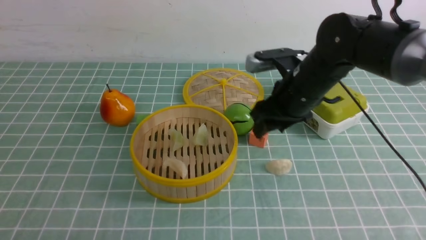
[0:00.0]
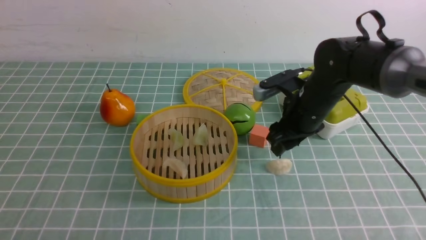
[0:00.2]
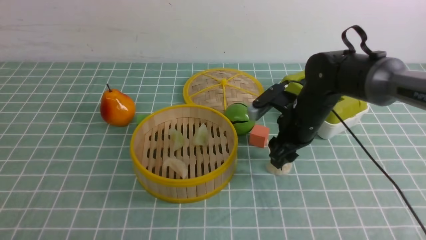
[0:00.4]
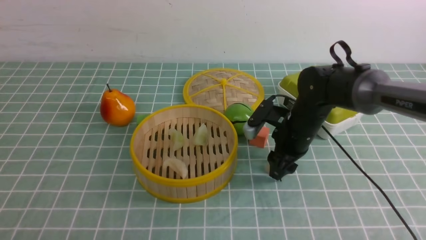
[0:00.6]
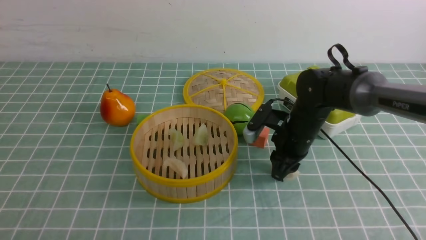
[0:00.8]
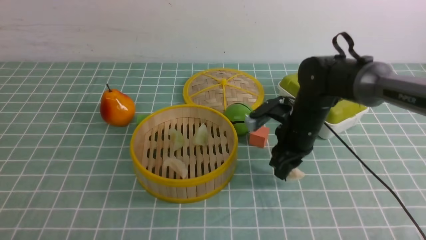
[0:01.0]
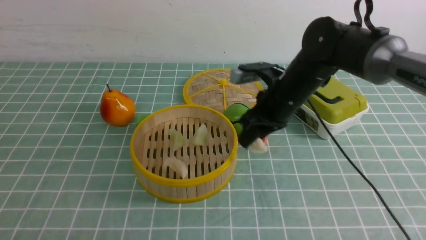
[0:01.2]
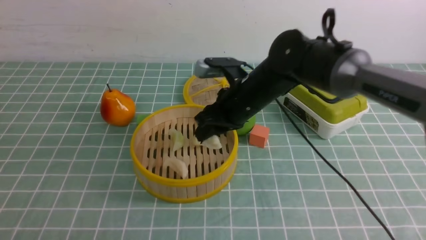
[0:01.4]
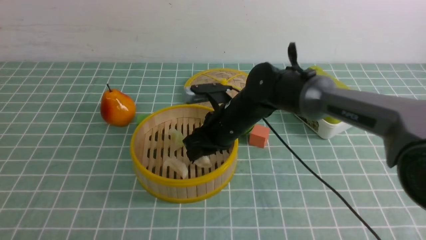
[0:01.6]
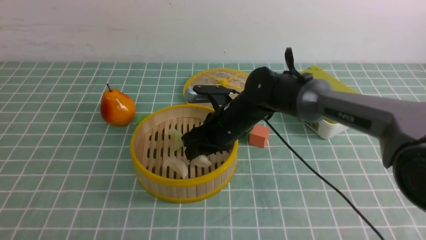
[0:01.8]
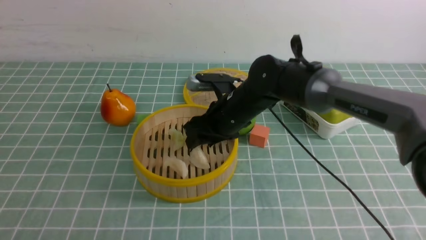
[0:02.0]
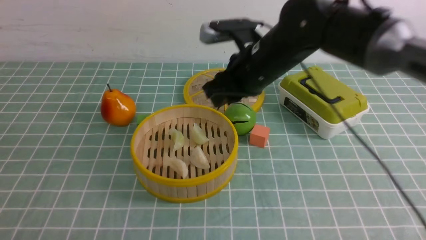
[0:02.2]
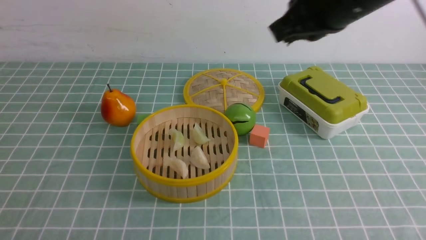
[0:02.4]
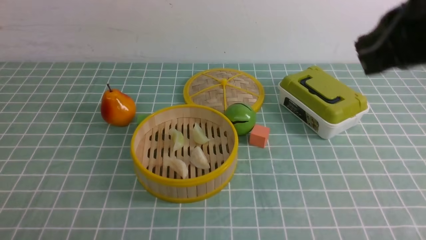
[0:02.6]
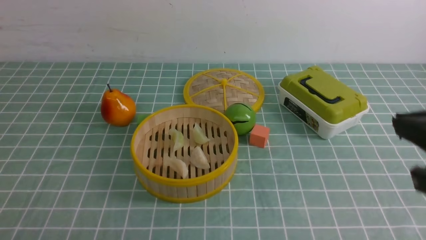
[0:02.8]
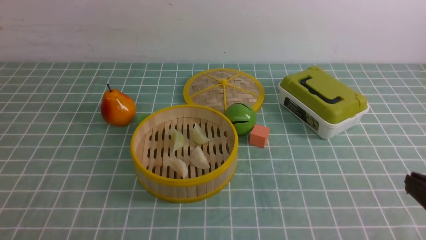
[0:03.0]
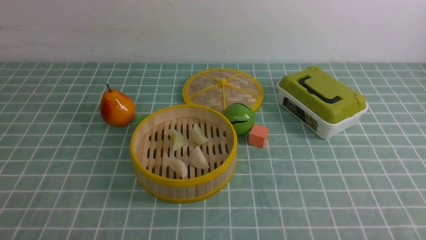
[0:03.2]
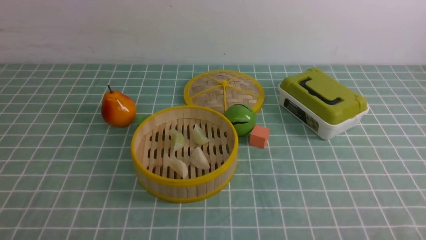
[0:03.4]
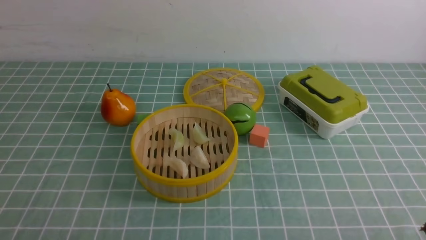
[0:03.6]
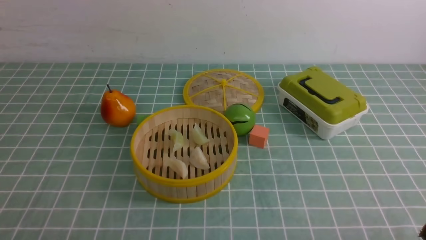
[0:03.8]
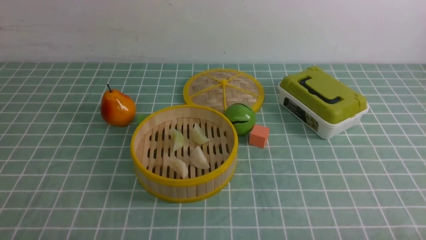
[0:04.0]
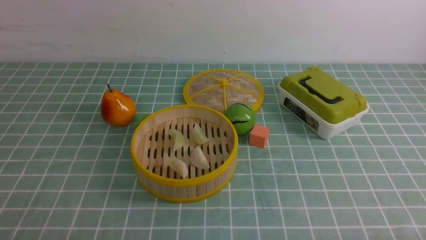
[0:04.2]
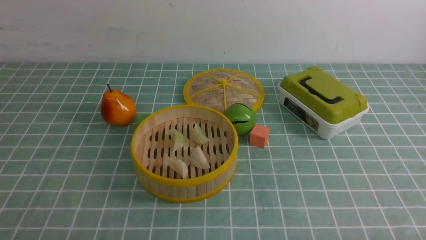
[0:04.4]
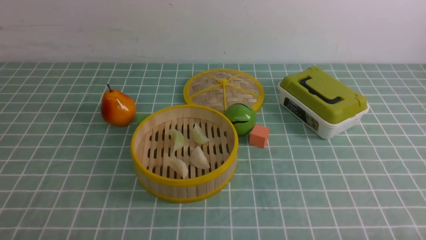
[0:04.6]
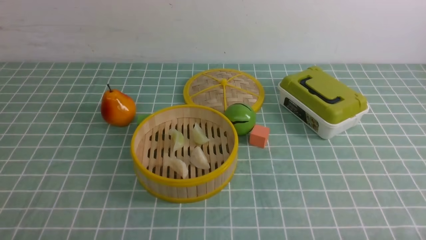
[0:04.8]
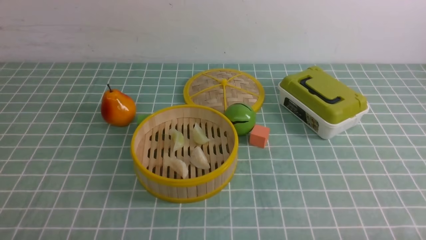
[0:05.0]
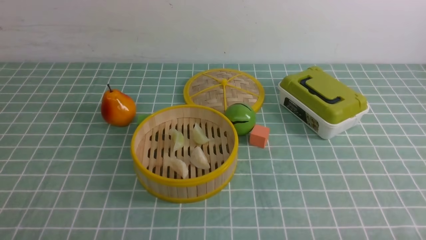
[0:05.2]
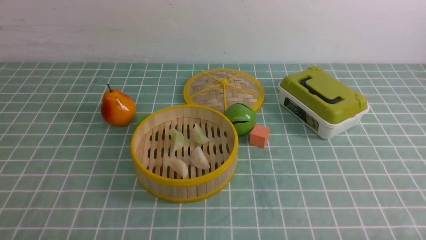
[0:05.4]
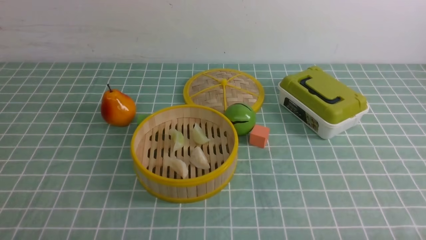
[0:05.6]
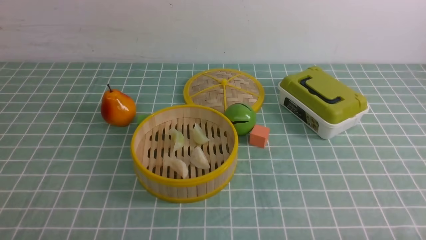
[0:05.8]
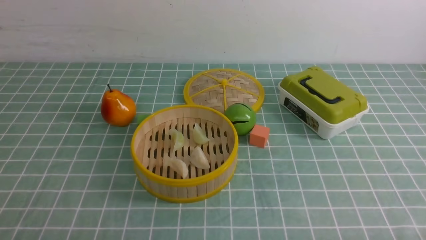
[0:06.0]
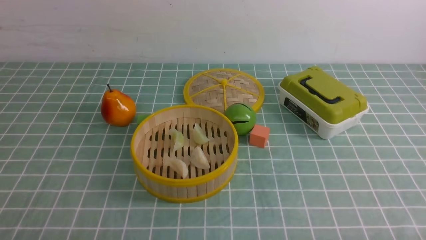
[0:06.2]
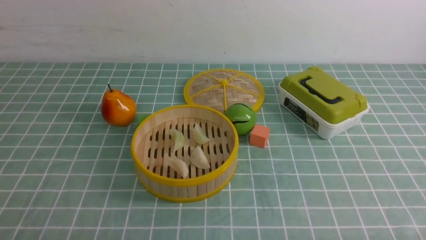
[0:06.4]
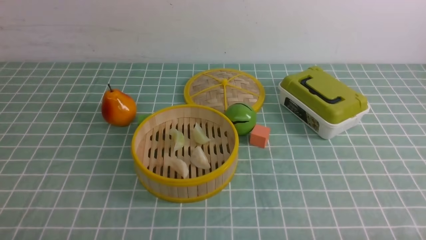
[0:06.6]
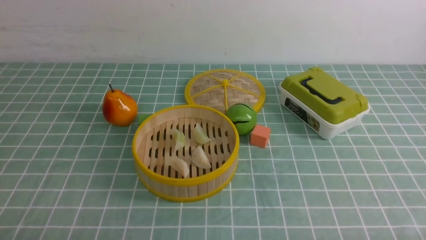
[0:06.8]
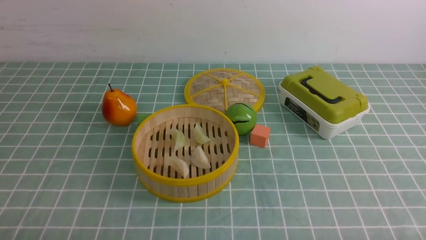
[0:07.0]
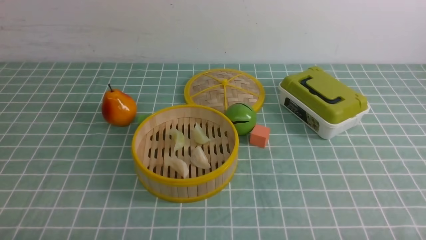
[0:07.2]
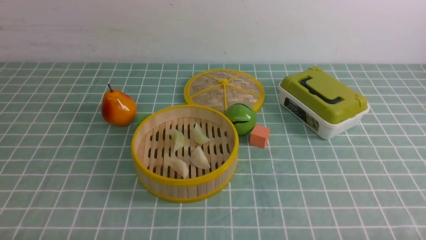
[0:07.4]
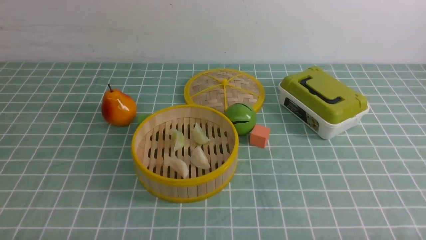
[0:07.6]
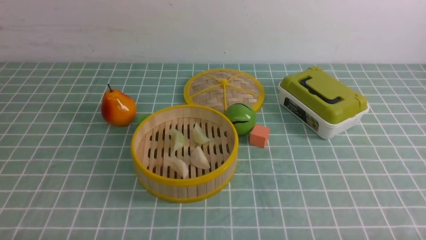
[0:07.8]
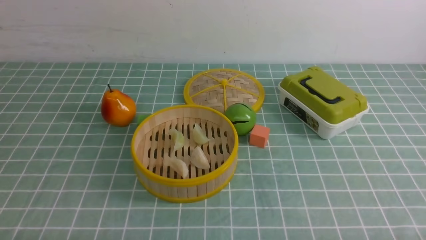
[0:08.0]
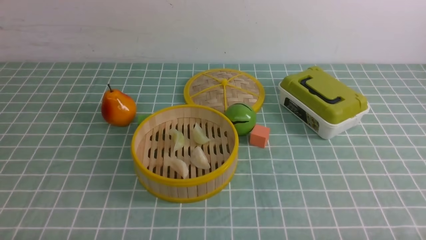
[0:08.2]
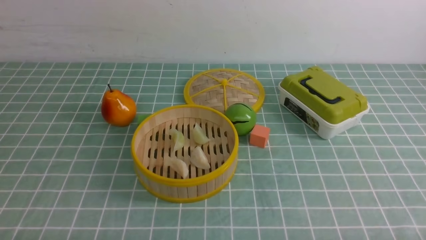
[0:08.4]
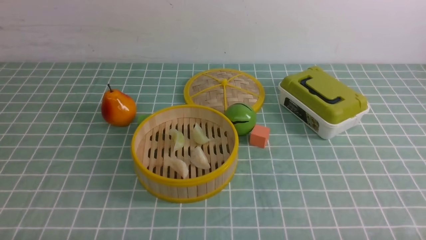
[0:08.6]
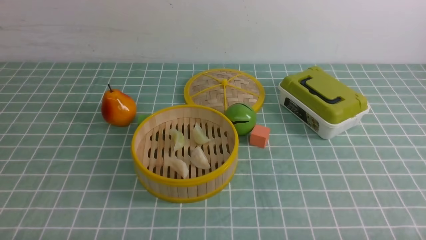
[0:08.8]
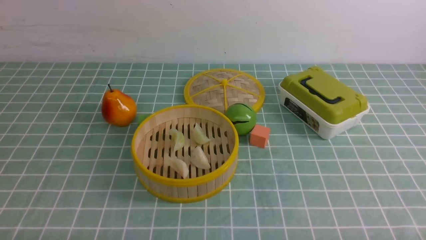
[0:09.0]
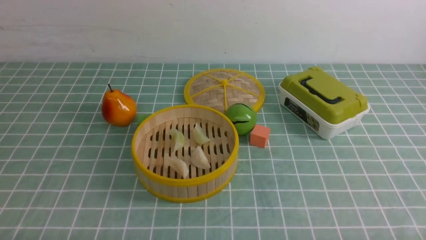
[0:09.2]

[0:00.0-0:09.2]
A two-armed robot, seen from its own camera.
Task of the whole recording: put the dumplings into the steamer on the table with the blue tablecloth.
Step, 0:00.0 to 0:00.6: use the right arm to grab a dumpling.
Step, 0:00.8 to 0:02.0: use the right arm to put the dumpling into the steamer.
0:00.0 to 0:01.6: The right gripper moves to the left, some 10 cm, and closes.
0:01.6 to 0:03.0: The right gripper shifts roughly 40 cm backward and to the right, and closes up.
0:07.6 to 0:09.2: Both grippers stay about where they are.

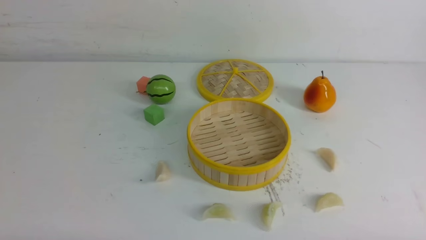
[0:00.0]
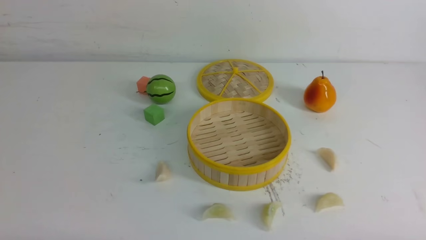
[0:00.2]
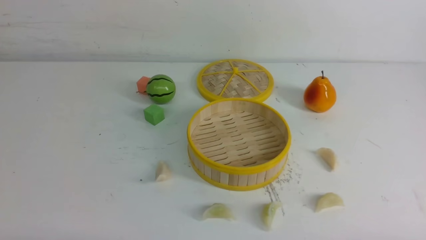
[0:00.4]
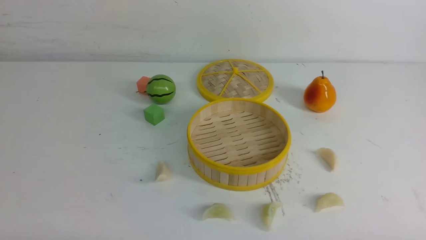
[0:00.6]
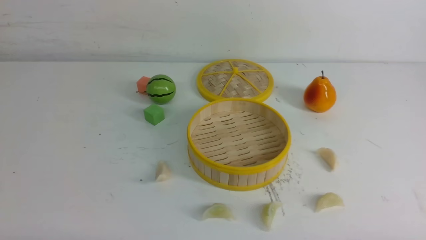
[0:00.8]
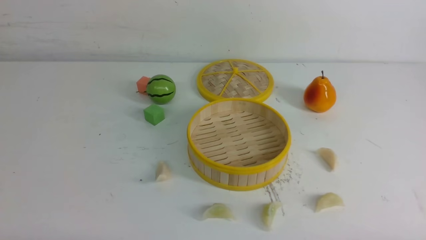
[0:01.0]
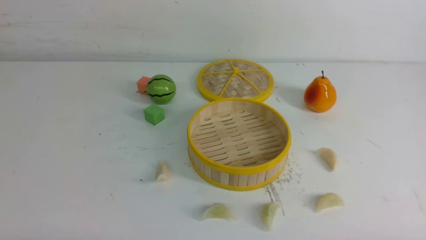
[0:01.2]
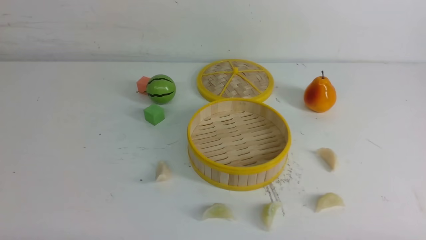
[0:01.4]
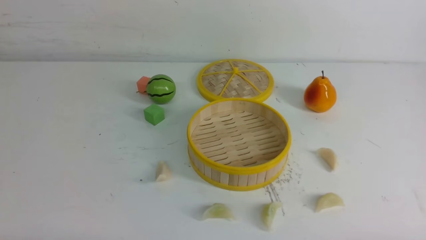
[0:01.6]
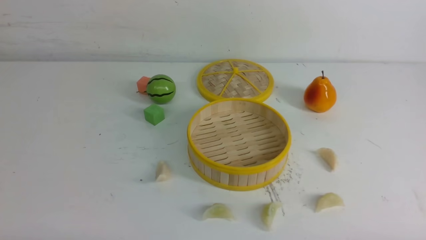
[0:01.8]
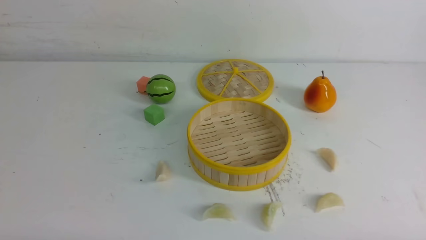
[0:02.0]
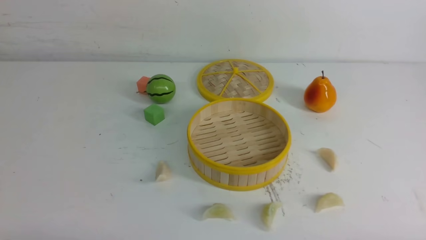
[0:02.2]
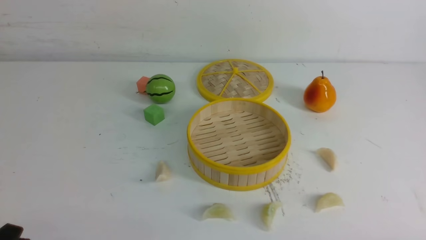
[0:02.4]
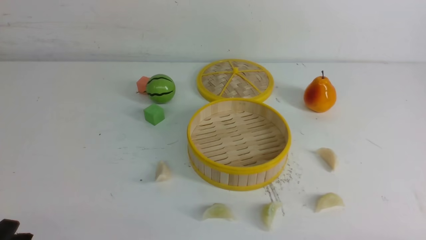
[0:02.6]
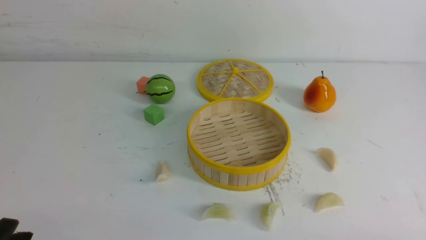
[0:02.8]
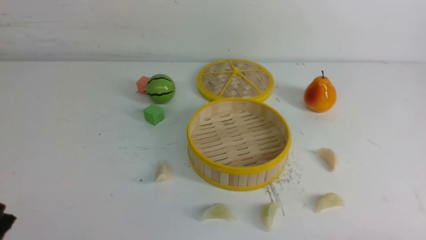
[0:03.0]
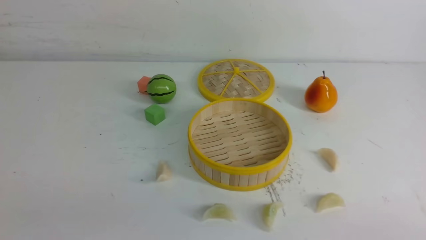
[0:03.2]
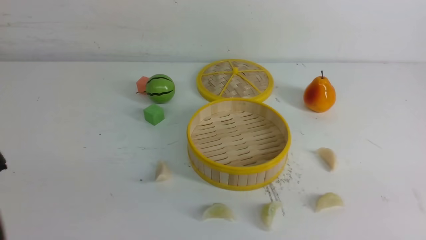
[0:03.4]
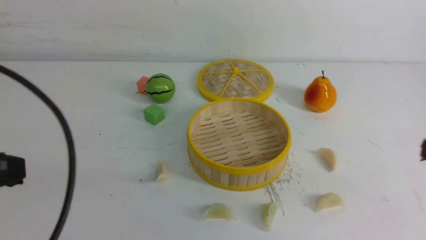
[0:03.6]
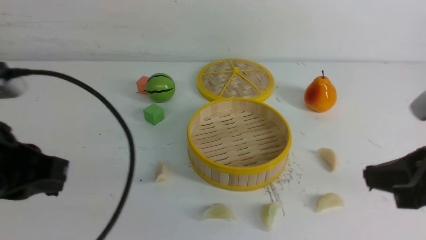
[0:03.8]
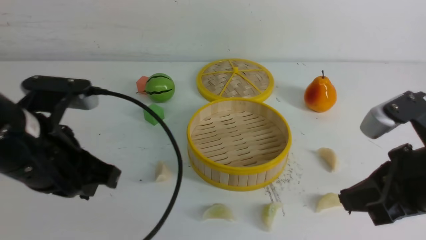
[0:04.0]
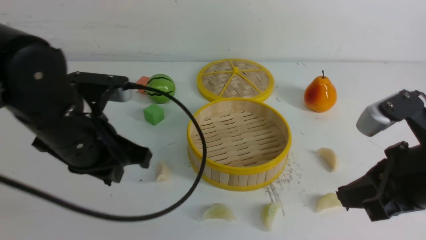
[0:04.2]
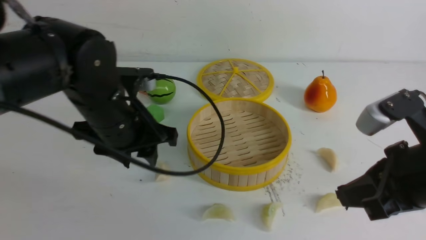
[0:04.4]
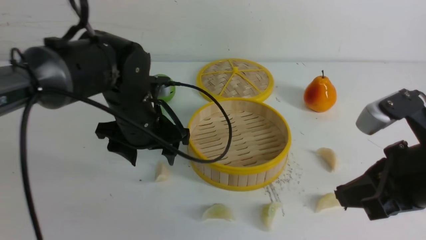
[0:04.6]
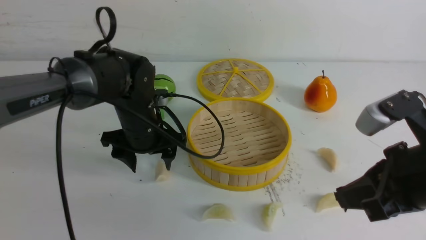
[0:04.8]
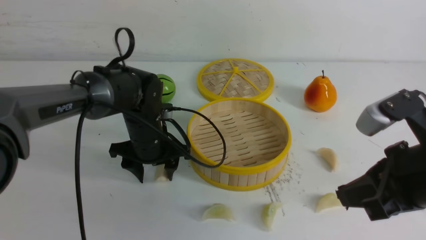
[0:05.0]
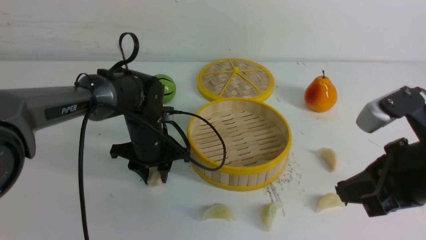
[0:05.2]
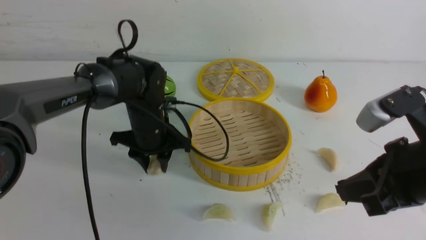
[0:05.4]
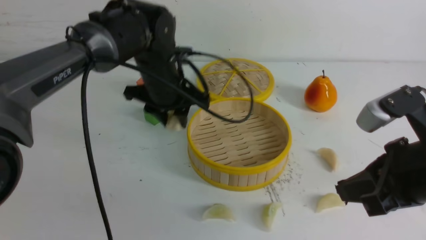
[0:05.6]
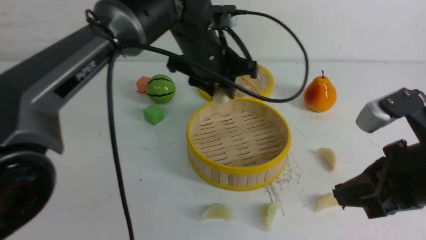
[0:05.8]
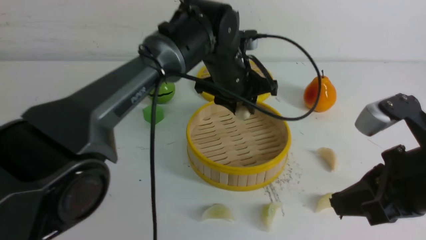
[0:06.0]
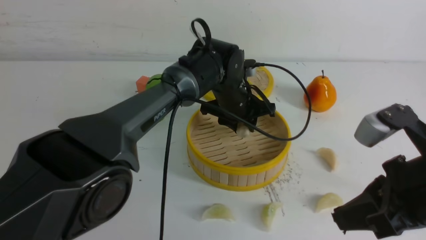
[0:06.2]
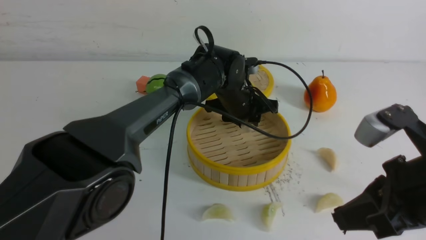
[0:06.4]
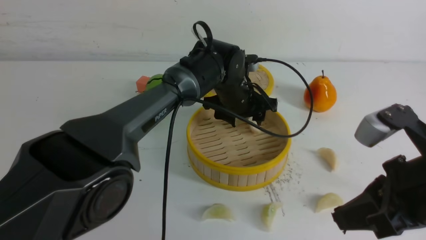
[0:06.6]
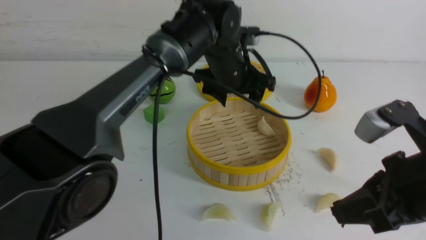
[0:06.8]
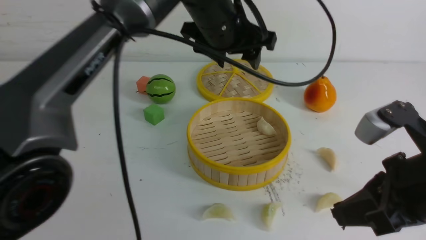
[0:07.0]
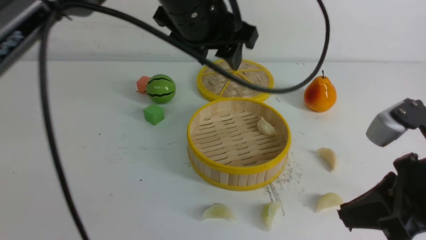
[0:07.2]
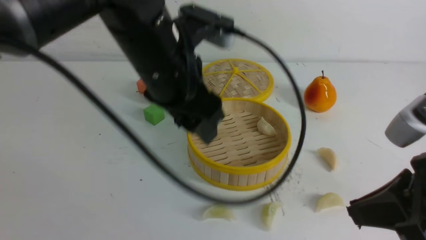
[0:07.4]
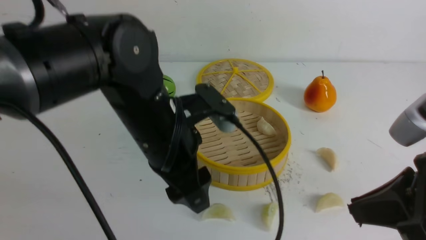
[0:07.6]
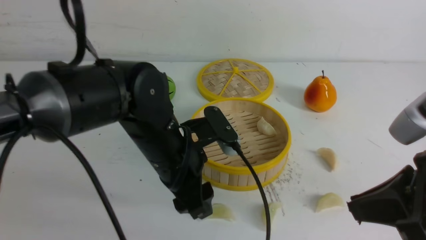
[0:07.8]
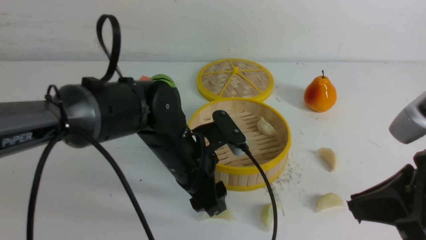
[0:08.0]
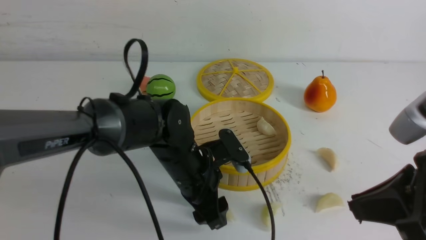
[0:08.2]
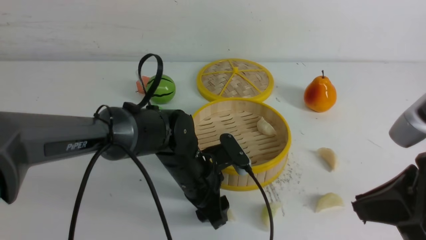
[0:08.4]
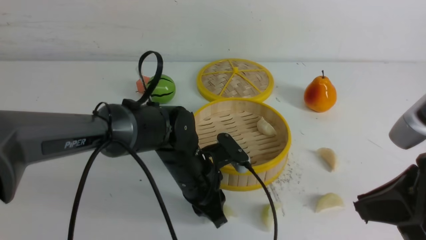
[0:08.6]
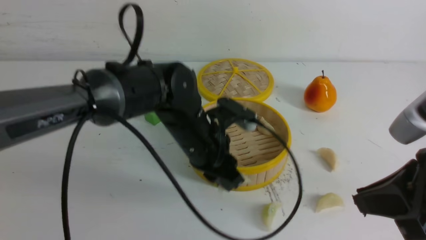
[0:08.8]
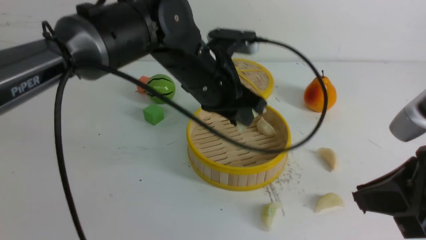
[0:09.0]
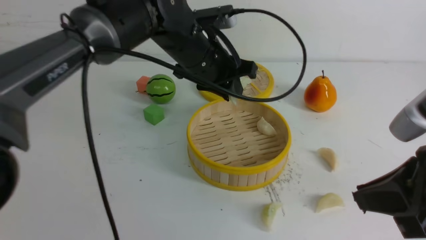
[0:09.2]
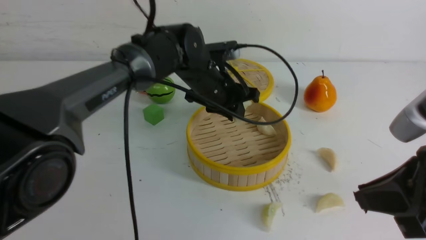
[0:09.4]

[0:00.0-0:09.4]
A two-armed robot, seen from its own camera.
Task of the whole recording: put the dumplings into the steamer on the white table.
Step, 0:00.0 to 0:05.2: use the left arm to grab a dumpling.
Step, 0:05.6 to 0:06.4: use the left arm to put the dumpling into the steamer.
Step, 0:06.6 to 0:08.6: use the left arm to grab a dumpling.
0:03.2 to 0:04.8: The right gripper goes some 20 cm forward, upward and to the left, while the left gripper moves forward and to the right, approximately 35 cm, and opens up.
0:04.8 to 0:06.2: The left gripper goes approximately 15 cm to the right and forward, and closes up.
0:06.2 to 0:07.8: The left gripper shifts about 20 cm backward and to the left, reaches some 15 cm upward, then returns, and opens.
0:07.8 to 0:09.4: The left gripper heads forward, covering about 15 cm, and closes its fingers.
